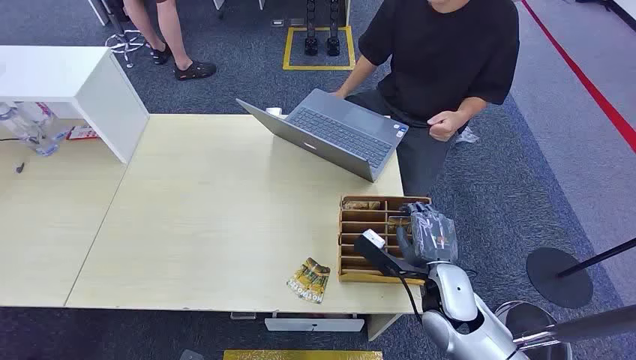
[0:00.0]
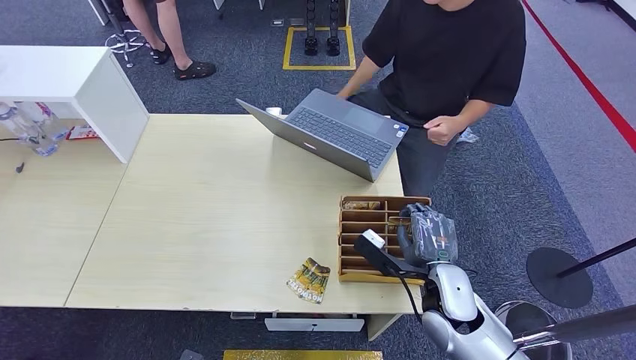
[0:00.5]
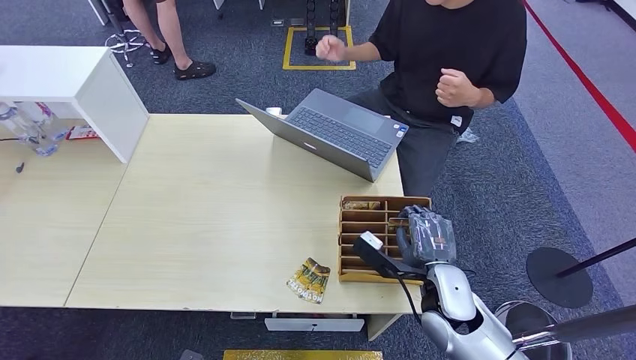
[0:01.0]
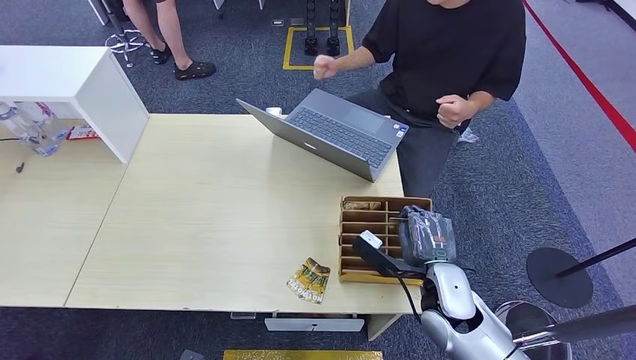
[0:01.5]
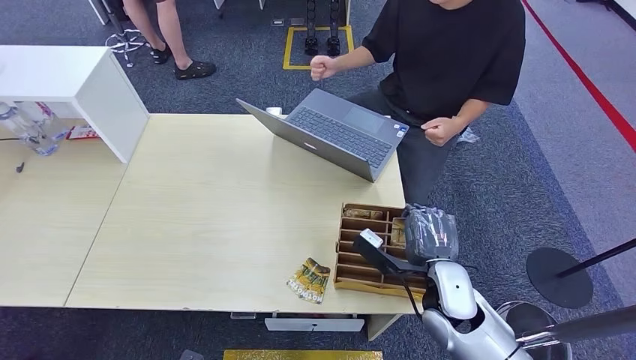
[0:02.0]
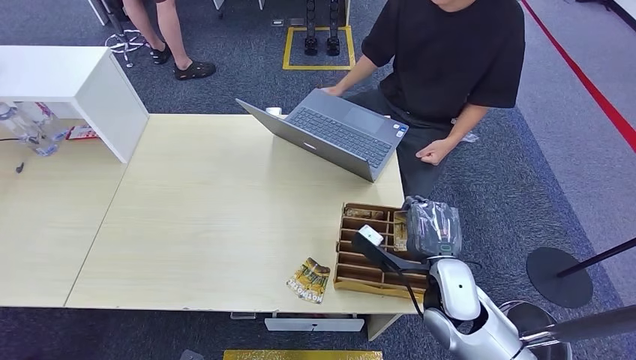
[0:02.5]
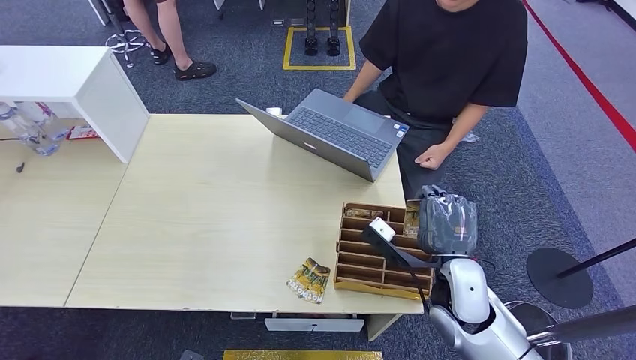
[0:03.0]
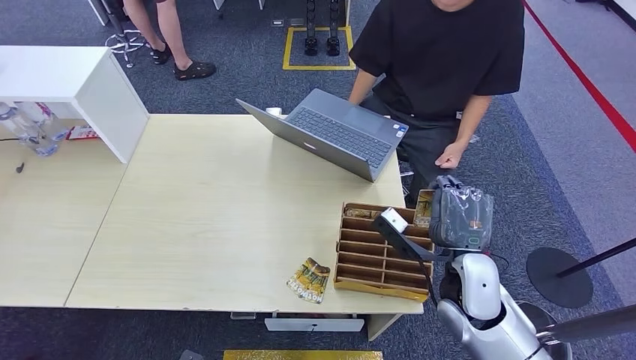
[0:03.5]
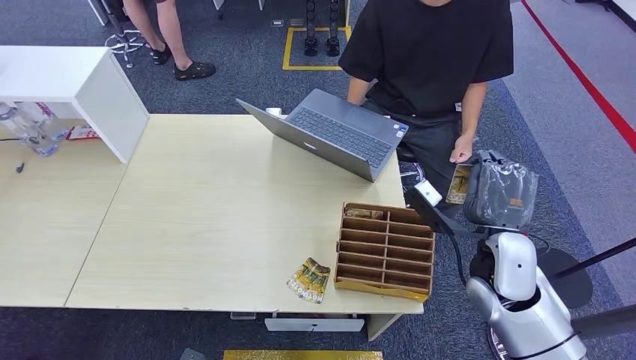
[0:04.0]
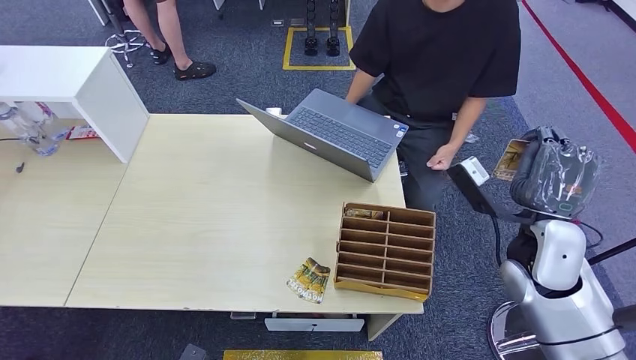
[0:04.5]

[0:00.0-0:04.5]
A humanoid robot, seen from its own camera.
Step, 0:00.0 to 0:02.5: Pick up the room card from the card holder.
Step, 0:03.0 to 0:04.5: Hand the room card to the target.
0:02.0 to 0:04.5: The right hand travels upward and to the right by approximately 15 cm.

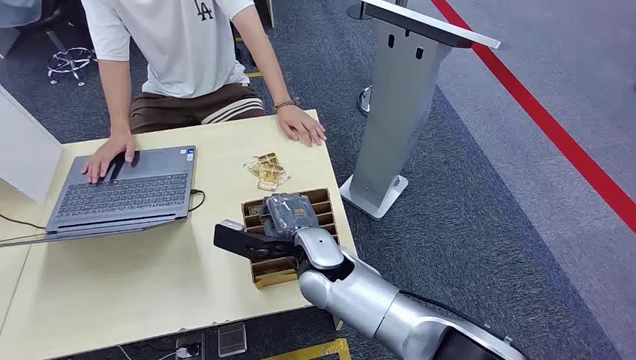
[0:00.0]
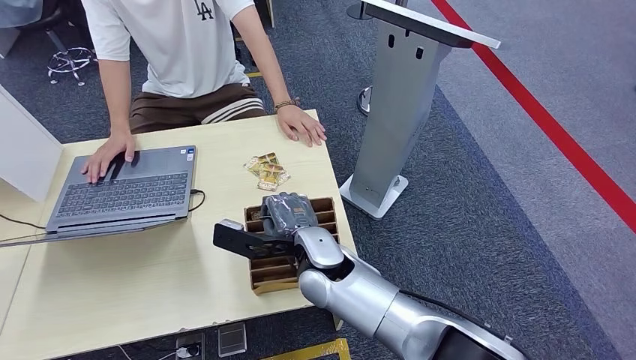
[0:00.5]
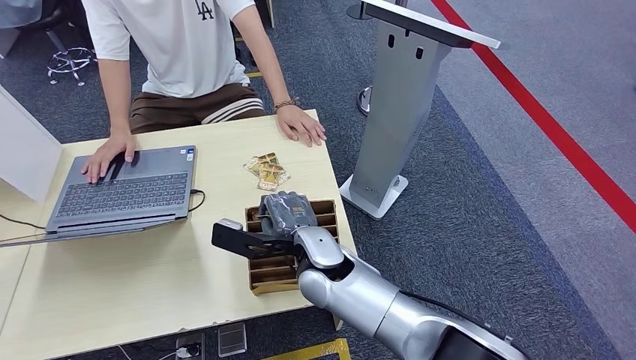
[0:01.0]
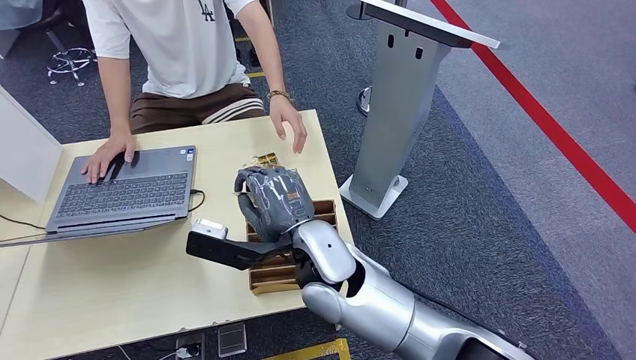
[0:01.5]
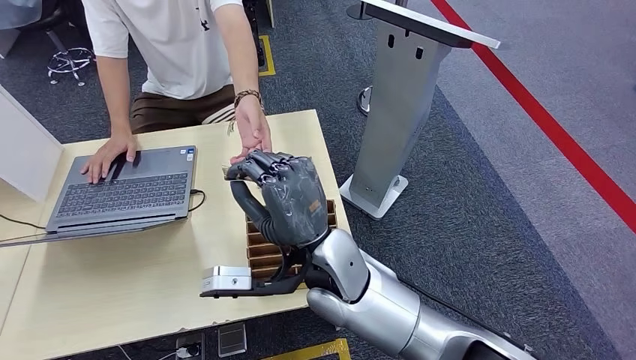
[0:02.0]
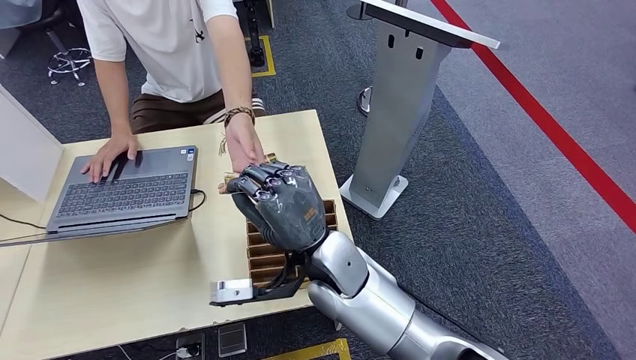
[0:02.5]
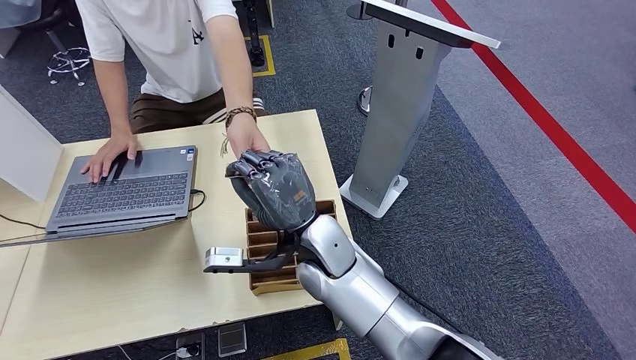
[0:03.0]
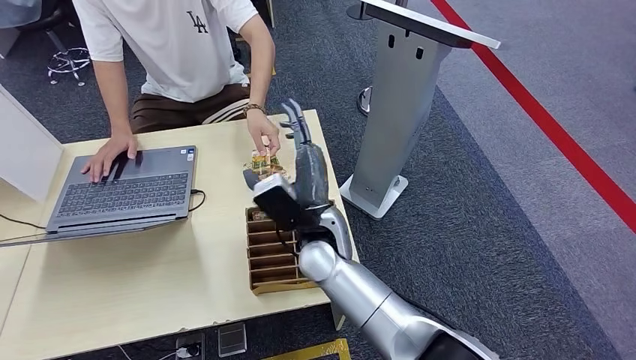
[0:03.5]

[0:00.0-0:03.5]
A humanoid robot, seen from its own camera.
Step, 0:00.0 to 0:01.5: Pick up the room card from the card holder.
Step, 0:02.0 to 0:03.5: Hand the room card to the target.
0:02.0 to 0:03.5: The right hand heads forward, covering approximately 5 cm.
